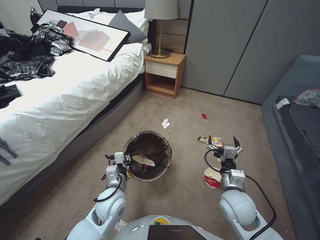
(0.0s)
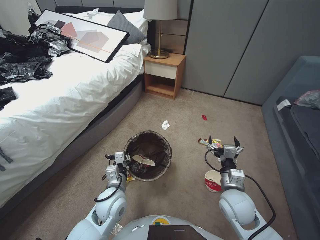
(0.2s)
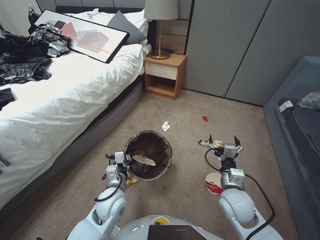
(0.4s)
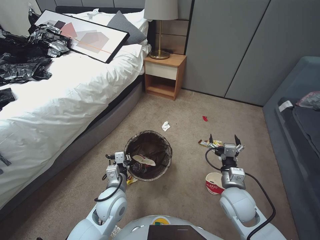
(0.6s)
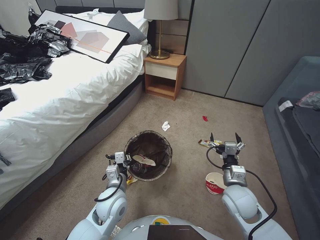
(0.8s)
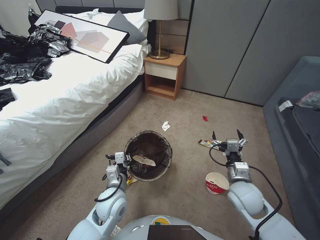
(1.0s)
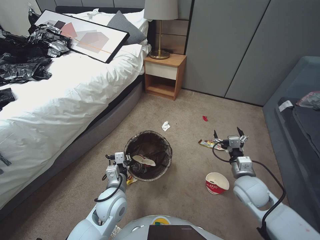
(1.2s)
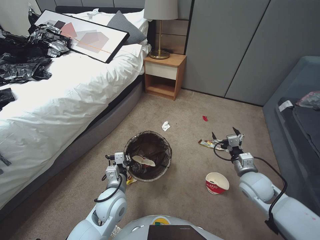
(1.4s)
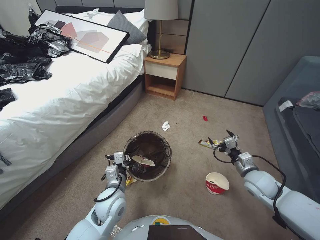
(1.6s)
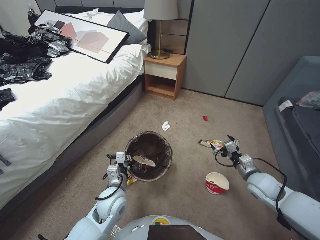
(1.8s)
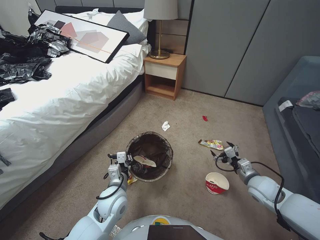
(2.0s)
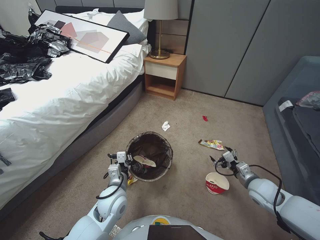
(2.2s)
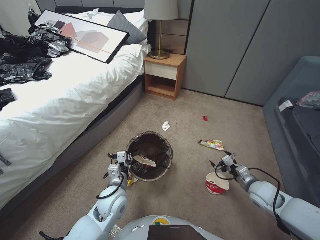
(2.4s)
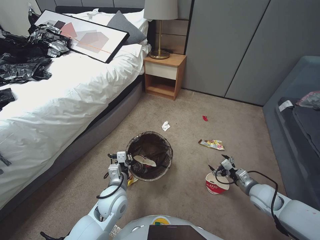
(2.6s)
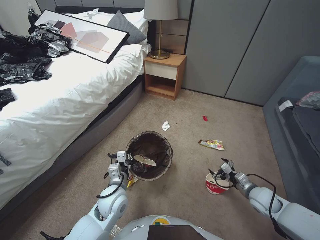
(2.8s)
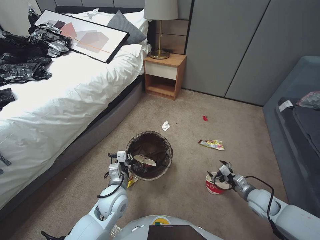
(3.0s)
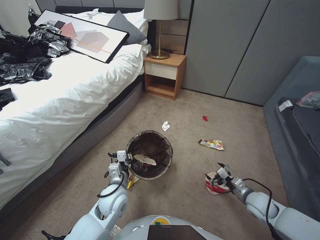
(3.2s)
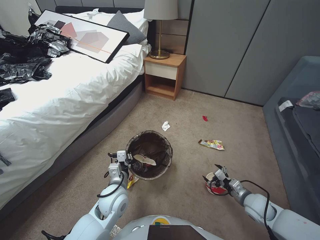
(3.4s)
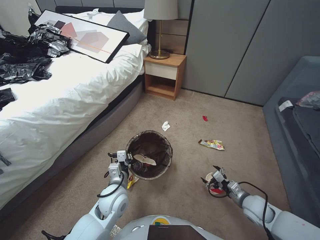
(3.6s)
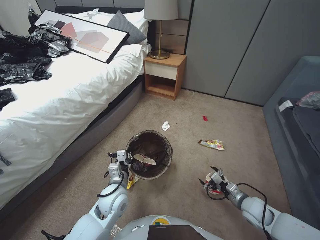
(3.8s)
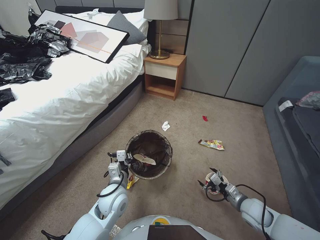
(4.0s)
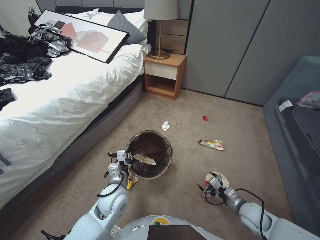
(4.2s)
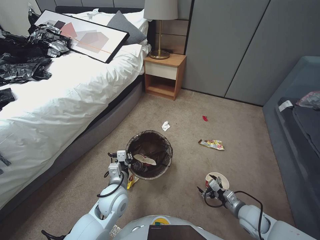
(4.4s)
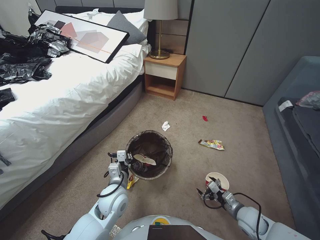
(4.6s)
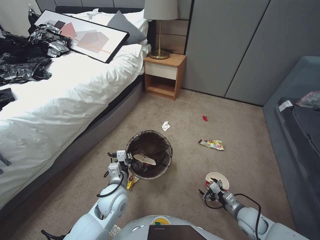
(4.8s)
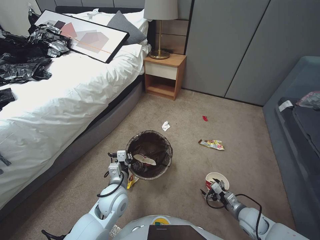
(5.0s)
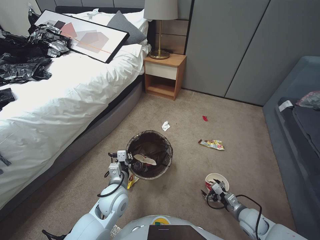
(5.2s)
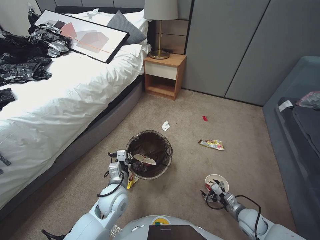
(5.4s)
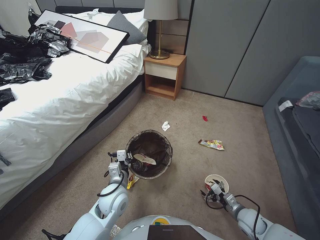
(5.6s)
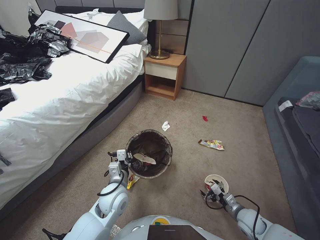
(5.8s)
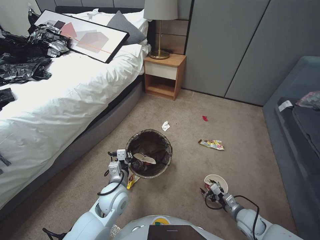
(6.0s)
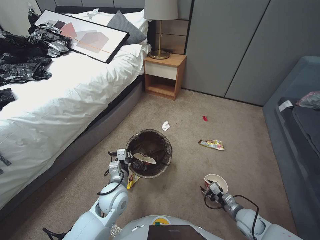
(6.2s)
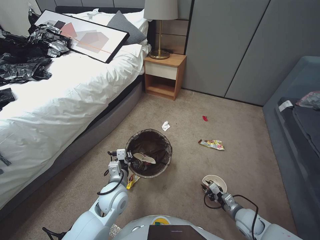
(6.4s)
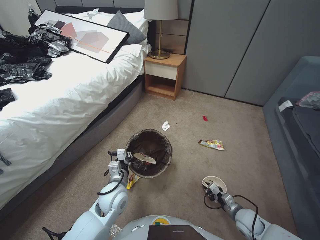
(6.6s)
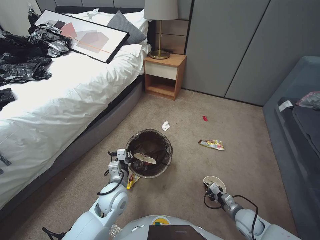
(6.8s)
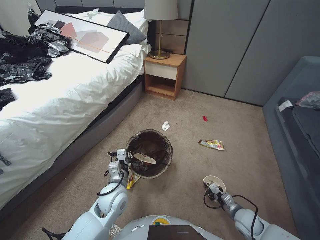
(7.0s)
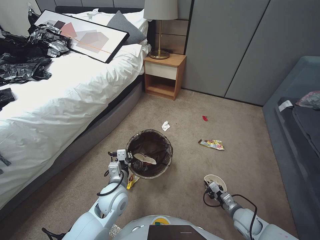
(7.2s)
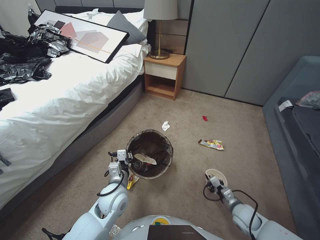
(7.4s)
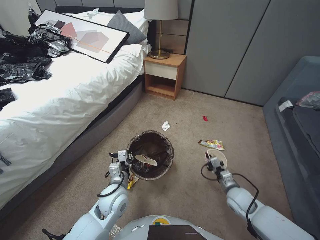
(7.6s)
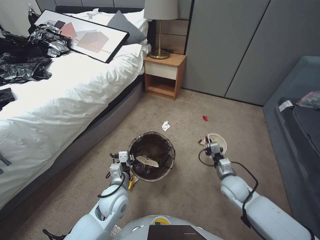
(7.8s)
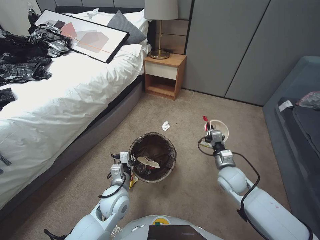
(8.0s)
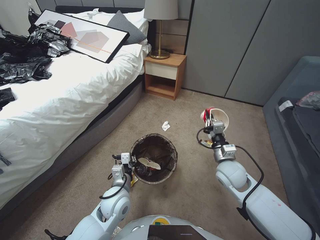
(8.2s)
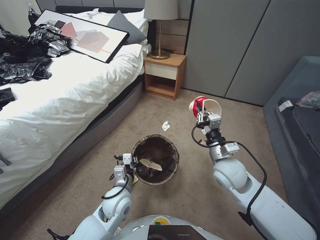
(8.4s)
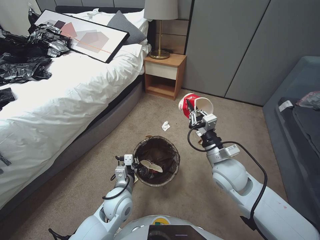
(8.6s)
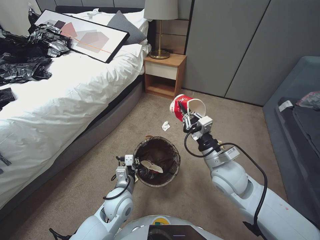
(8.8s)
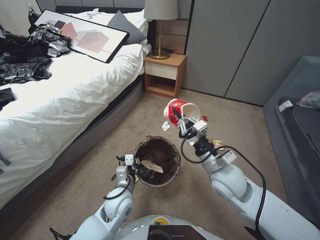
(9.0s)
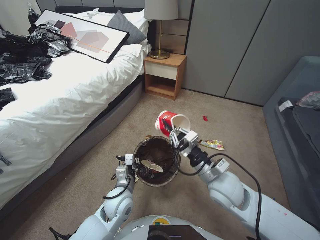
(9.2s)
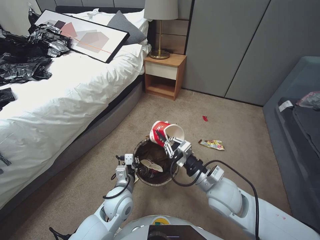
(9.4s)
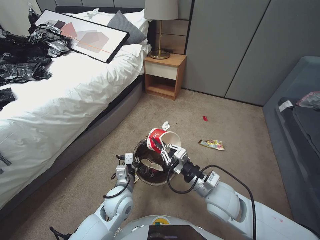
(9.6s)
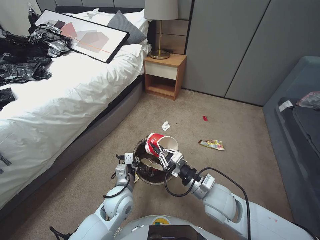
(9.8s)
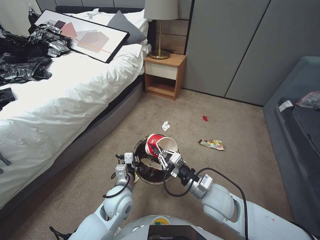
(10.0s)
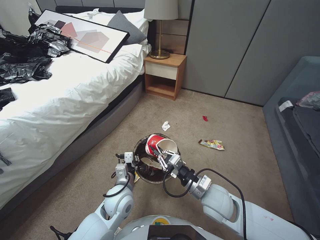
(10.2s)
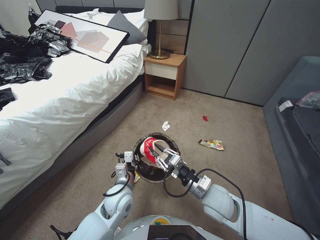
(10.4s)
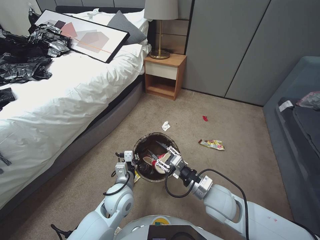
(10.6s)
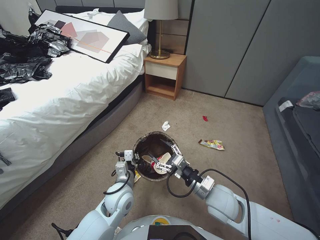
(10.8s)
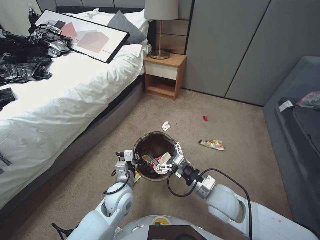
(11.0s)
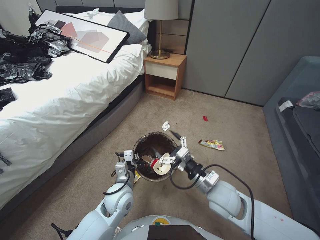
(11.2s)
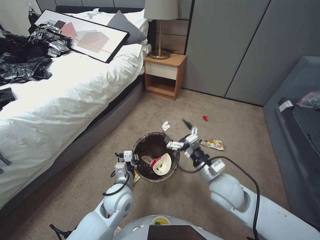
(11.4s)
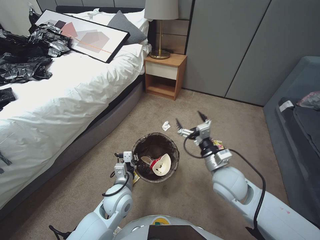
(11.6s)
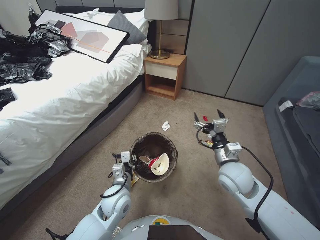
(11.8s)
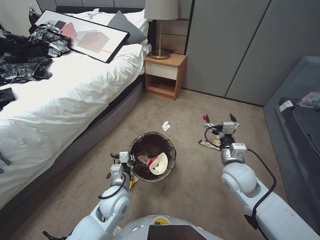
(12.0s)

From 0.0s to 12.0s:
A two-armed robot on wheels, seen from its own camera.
Task of the whole recording: Pick up the trash bin, then pick up the garbage from the floor and place it into the trash bin.
From 0.0s to 1.6s: The right gripper shifts roughly 15 cm to the right and forward.
From 1.6s to 3.0s: The right gripper moves downward and to the right, roughly 10 cm.
From 3.0s to 4.4s: The right gripper moves about 10 cm.
From 4.4s to 6.0s: The grippers make only small movements.
From 6.0s to 7.6s: The right gripper shifts by approximately 5 cm, and closes its fingers.
From 7.6s to 9.0s: The right gripper travels upward and to the left by roughly 25 cm.
From 9.0s to 10.4s: The right gripper heads downward and backward, covering about 10 cm.
From 10.4s to 12.0s: The right gripper is displaced upward by some 5 cm, and opens.

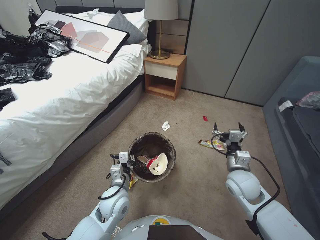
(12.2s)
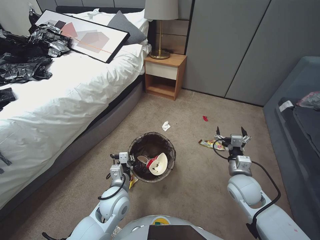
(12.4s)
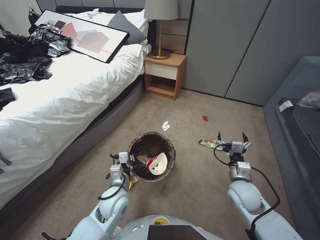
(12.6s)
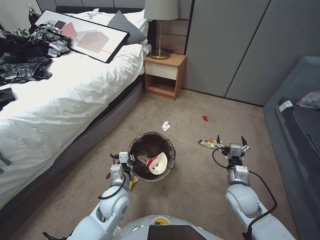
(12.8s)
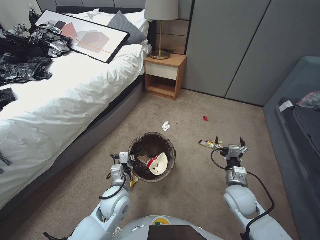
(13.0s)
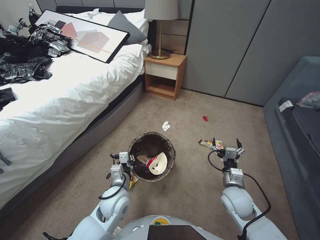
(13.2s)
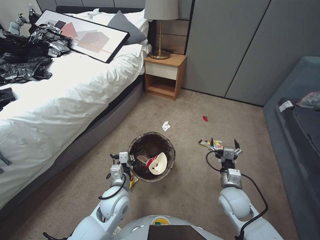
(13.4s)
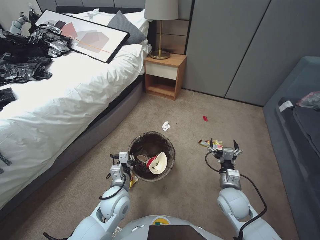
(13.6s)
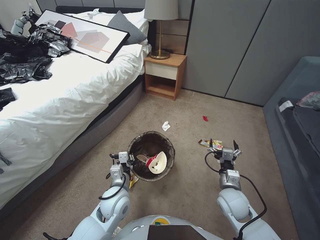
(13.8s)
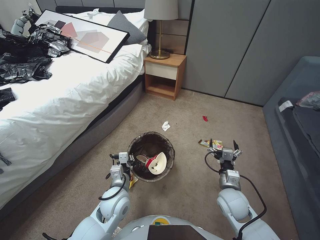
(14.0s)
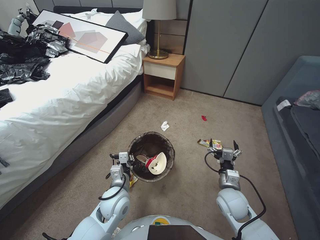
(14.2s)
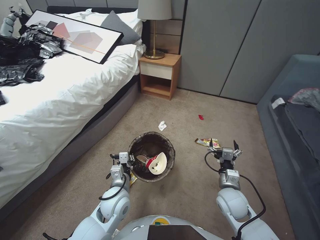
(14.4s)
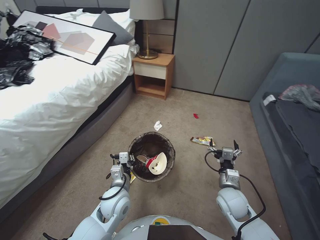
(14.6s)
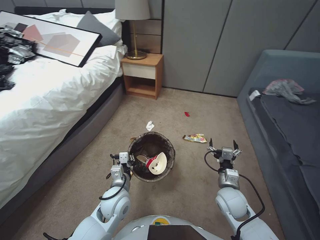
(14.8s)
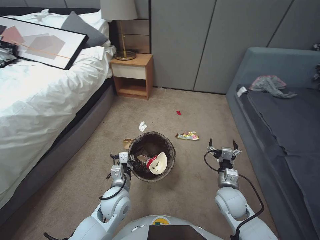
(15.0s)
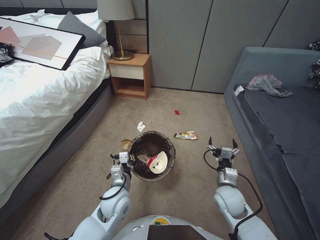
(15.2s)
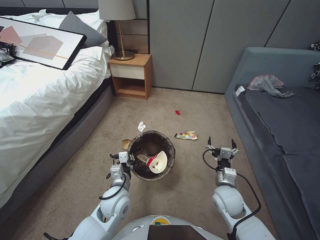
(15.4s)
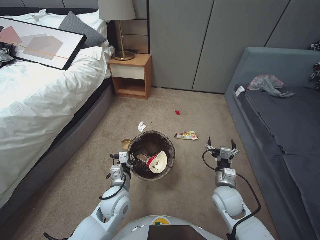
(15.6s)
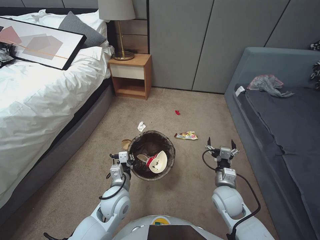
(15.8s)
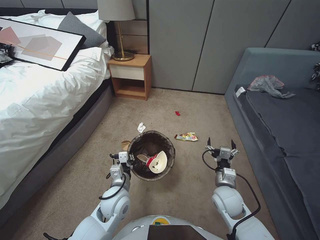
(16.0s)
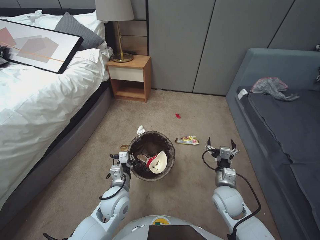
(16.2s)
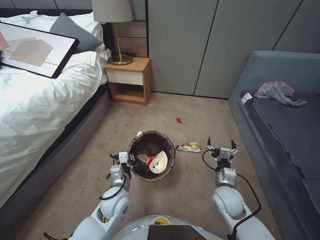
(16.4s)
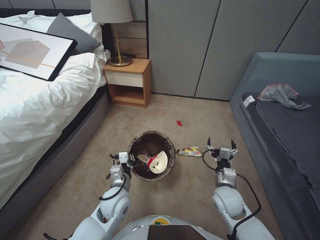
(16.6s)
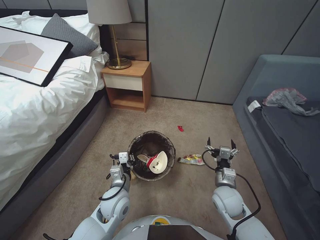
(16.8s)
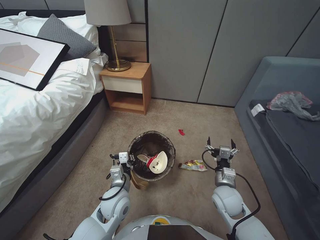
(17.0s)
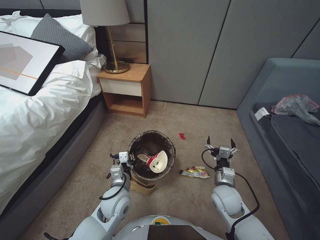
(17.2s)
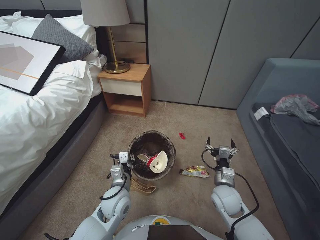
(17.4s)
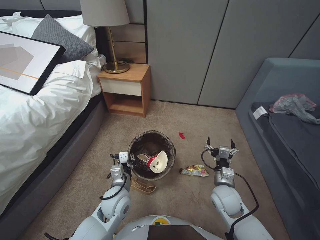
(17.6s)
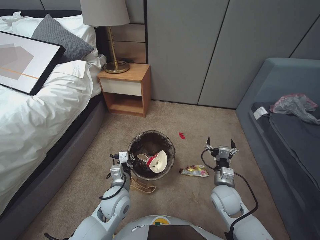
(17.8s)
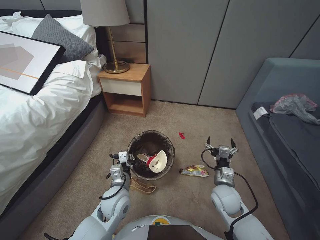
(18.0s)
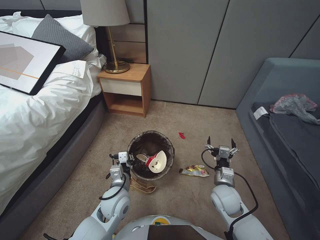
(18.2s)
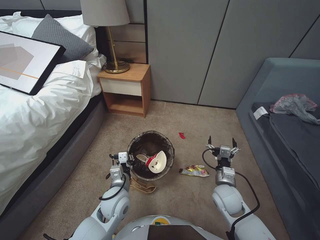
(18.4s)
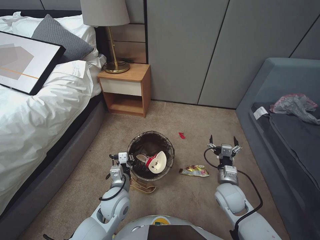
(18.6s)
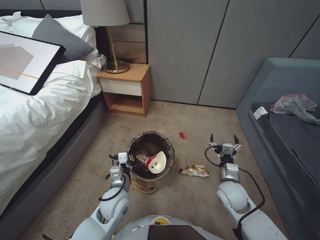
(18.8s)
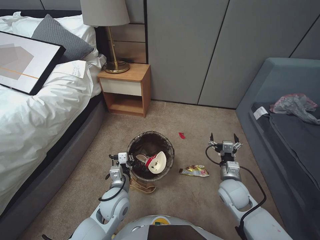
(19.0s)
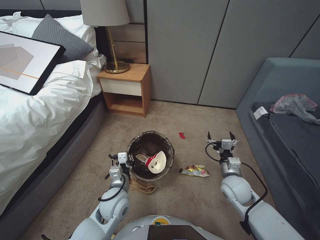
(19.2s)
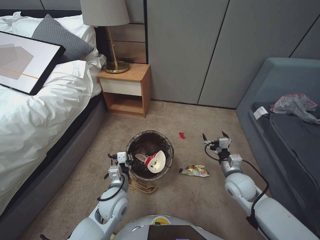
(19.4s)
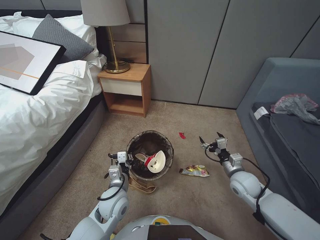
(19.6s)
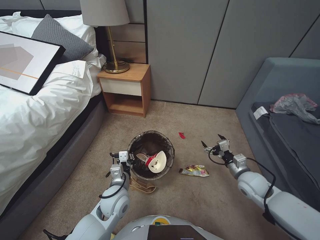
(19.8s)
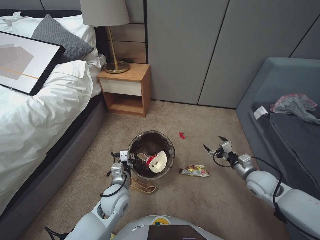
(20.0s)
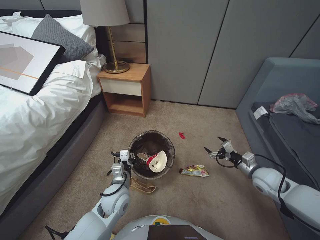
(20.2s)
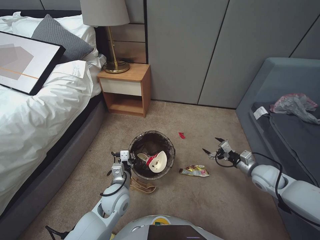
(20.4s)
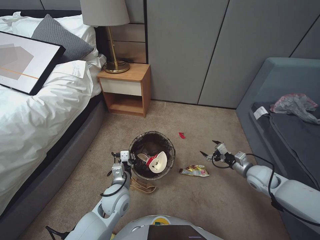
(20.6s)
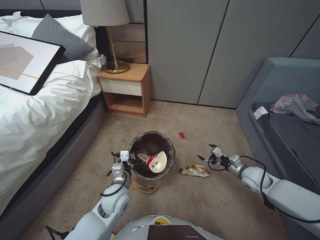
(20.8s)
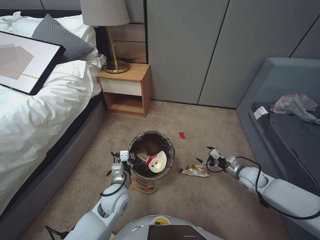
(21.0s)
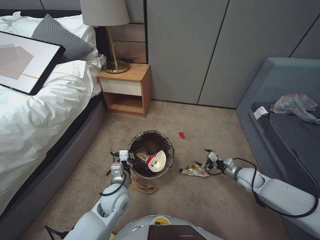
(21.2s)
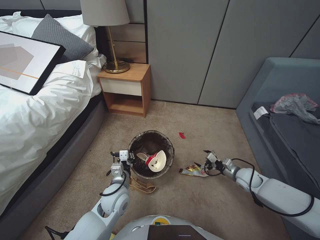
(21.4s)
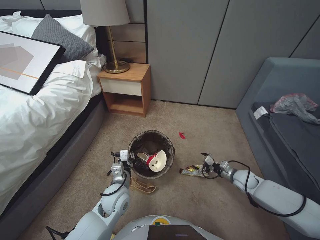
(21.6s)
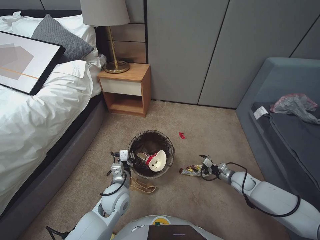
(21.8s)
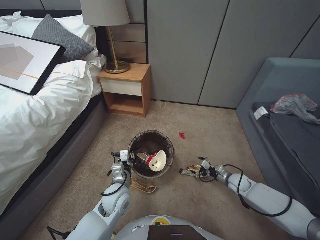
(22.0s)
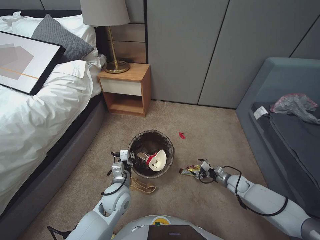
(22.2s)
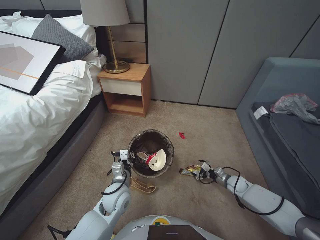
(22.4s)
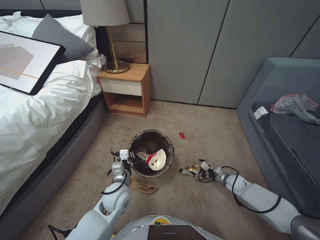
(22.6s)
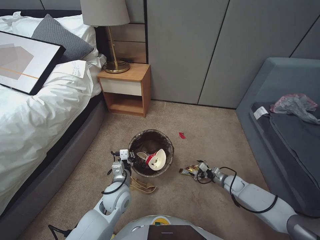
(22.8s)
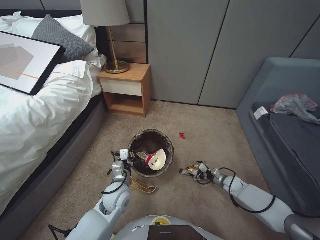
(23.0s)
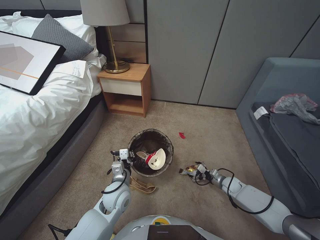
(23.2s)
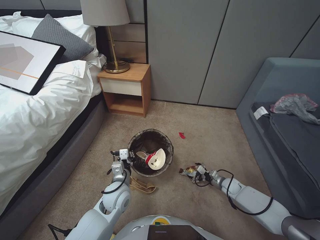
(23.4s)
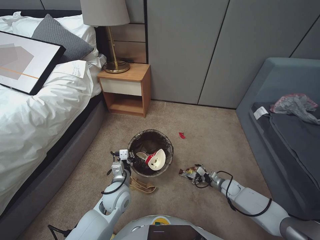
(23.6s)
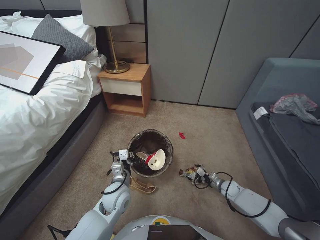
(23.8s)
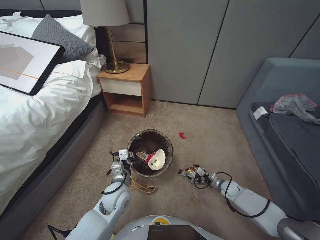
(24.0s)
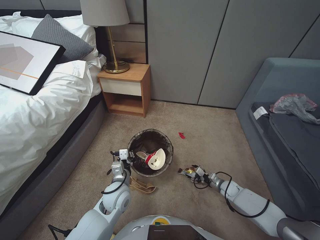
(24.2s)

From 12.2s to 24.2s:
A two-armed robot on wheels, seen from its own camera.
Task of the whole recording: Pick up the trash bin, then pick up the garbage from the floor and place it into the trash bin.
From 12.2s to 13.8s: The right gripper shifts some 10 cm downward.
From 15.2s to 18.2s: The two grippers keep their place.
From 18.2s to 19.8s: The right gripper travels to the right by roughly 10 cm.
From 19.8s to 21.2s: The right gripper goes about 10 cm to the right and downward.
From 21.2s to 22.6s: The right gripper shifts about 10 cm downward.
From 22.6s to 24.2s: The grippers make only small movements.
